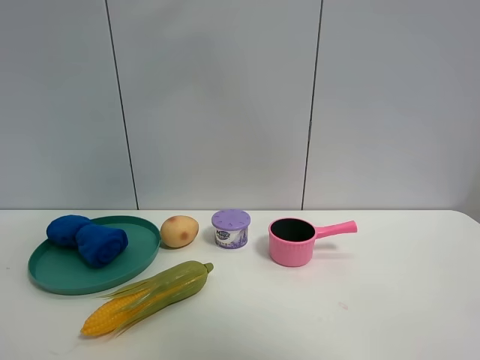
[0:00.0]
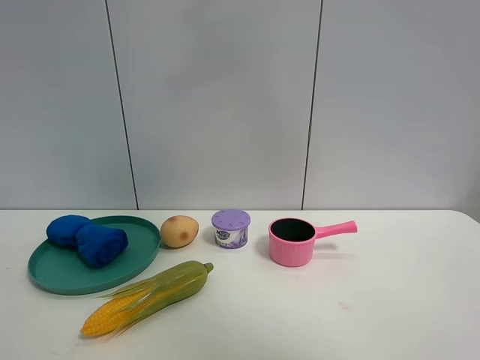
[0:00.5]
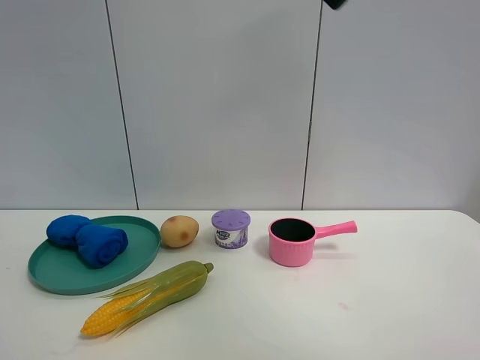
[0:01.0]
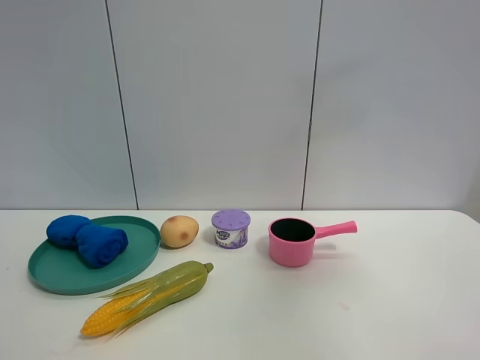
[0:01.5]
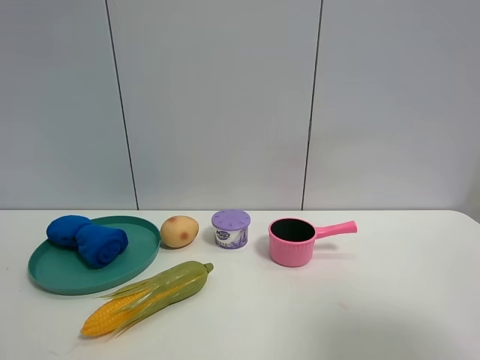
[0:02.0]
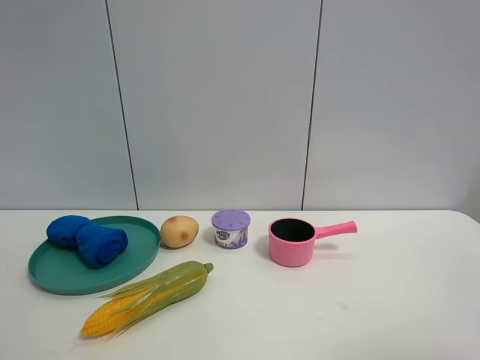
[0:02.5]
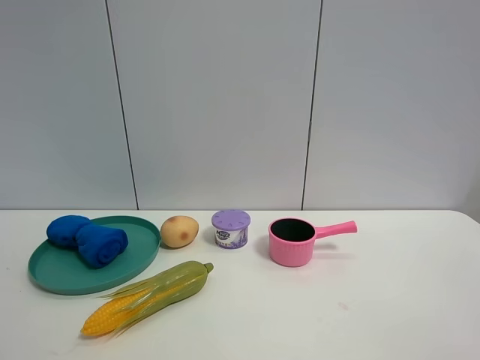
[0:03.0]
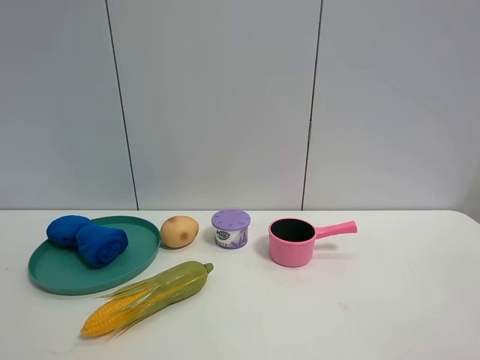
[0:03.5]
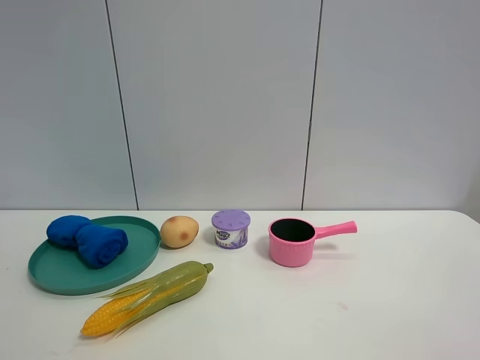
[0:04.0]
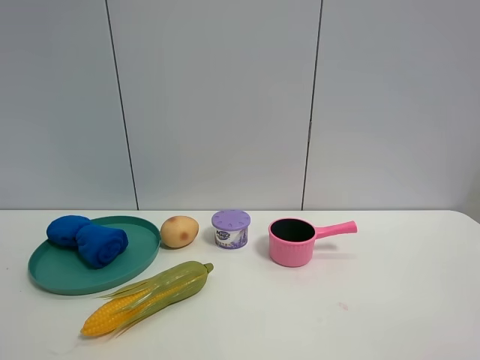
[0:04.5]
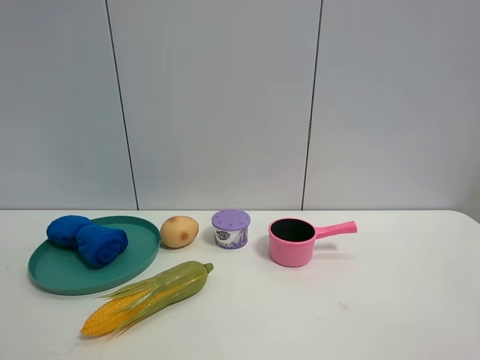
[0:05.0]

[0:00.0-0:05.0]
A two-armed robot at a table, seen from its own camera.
Task of the whole recording: the gripper move the object.
0:00.0 to 0:02.5: The right gripper goes about 40 cm to the right, backward and downward.

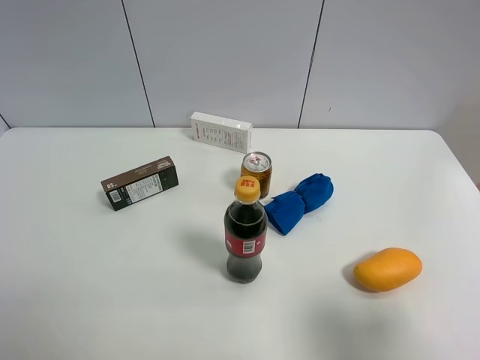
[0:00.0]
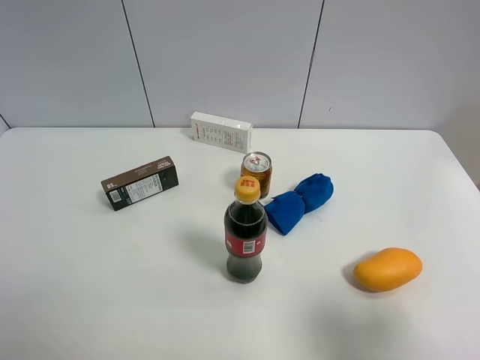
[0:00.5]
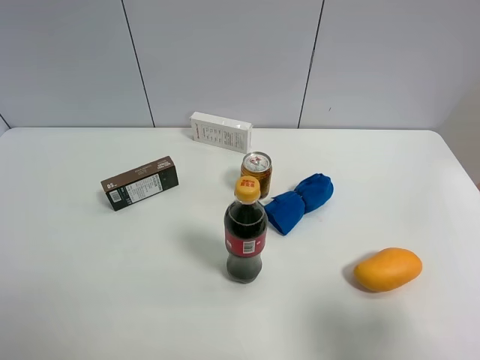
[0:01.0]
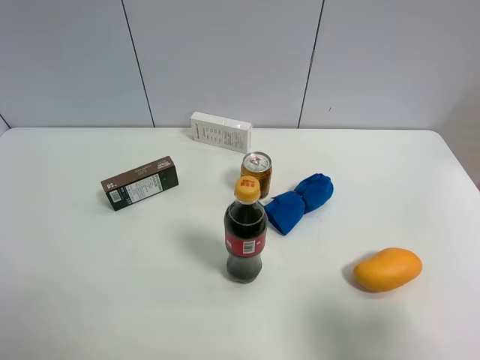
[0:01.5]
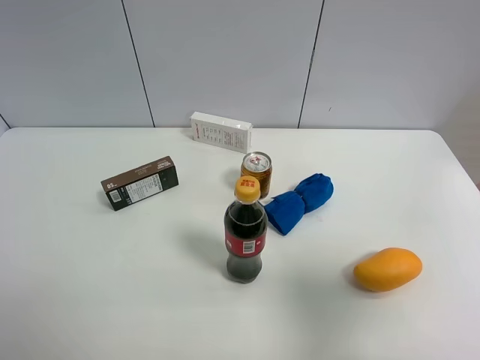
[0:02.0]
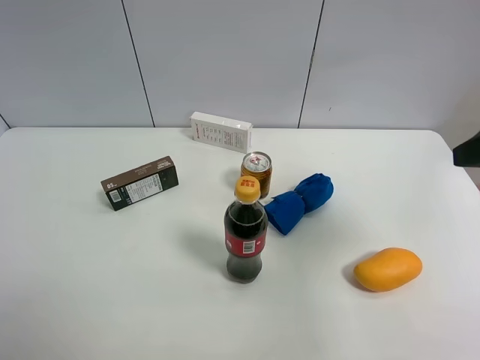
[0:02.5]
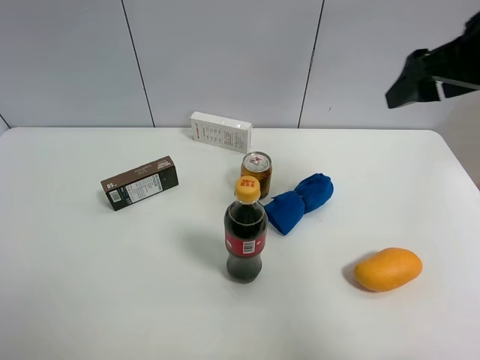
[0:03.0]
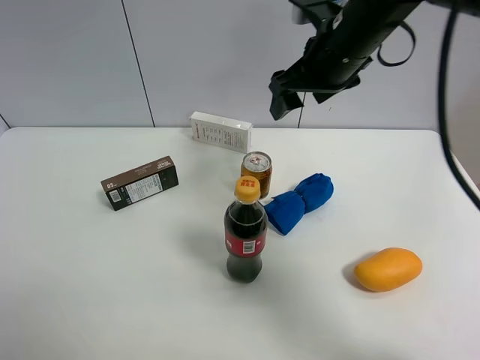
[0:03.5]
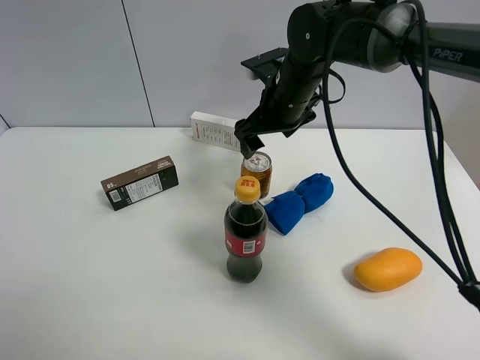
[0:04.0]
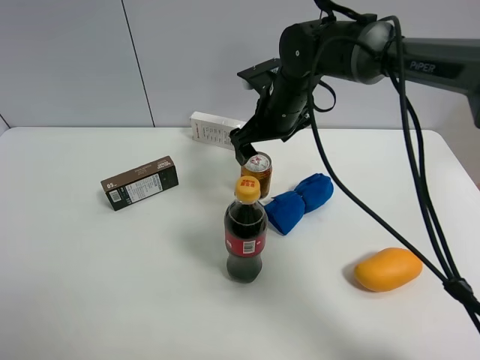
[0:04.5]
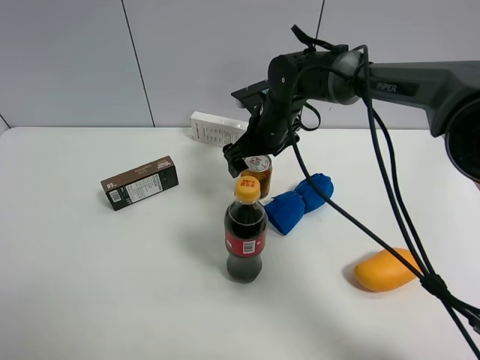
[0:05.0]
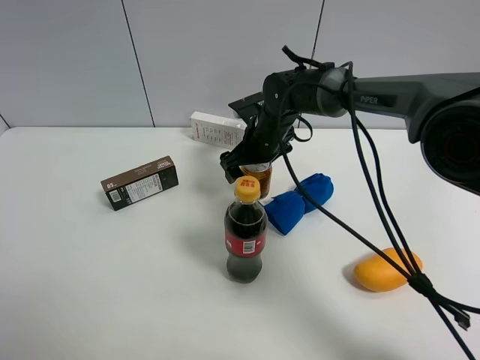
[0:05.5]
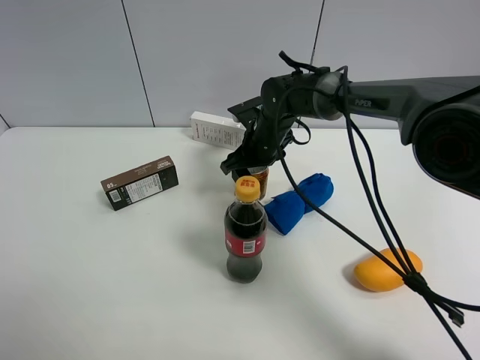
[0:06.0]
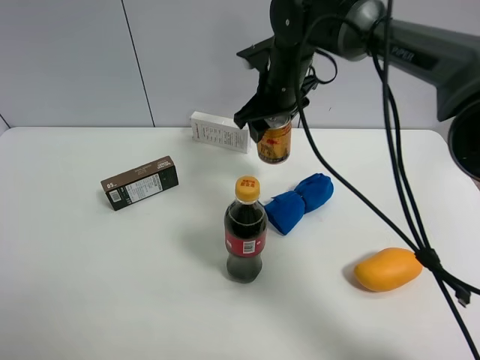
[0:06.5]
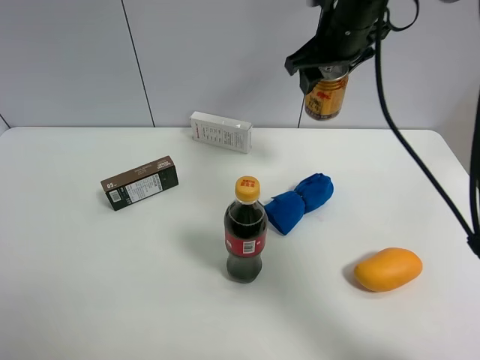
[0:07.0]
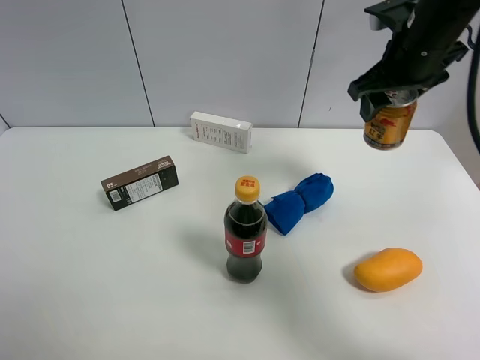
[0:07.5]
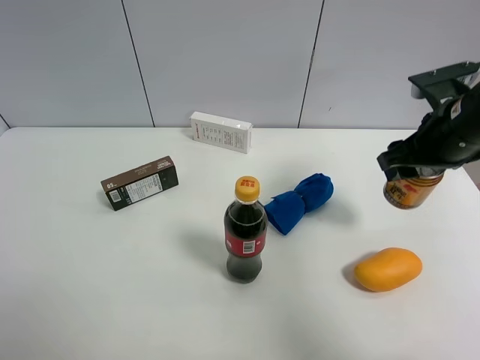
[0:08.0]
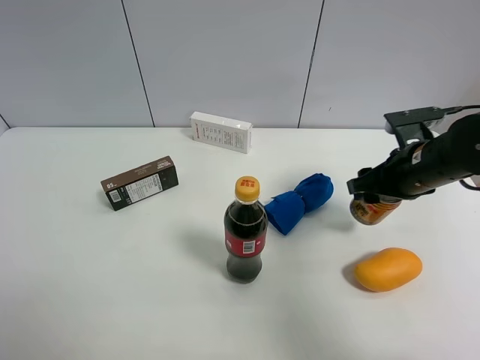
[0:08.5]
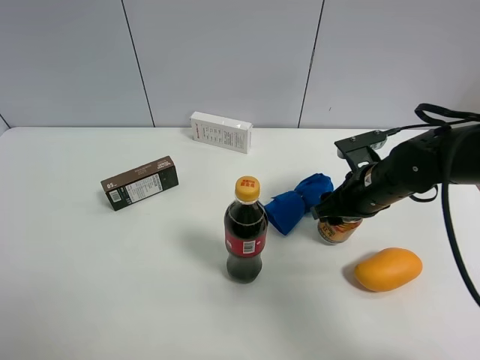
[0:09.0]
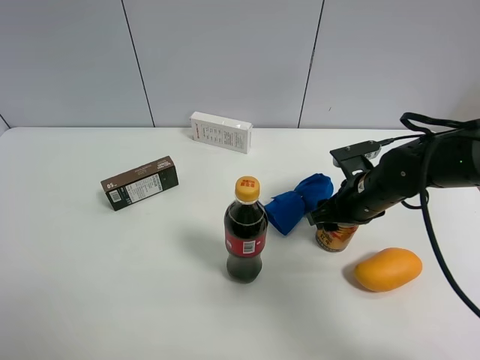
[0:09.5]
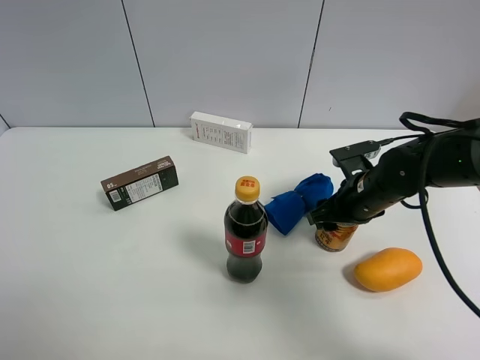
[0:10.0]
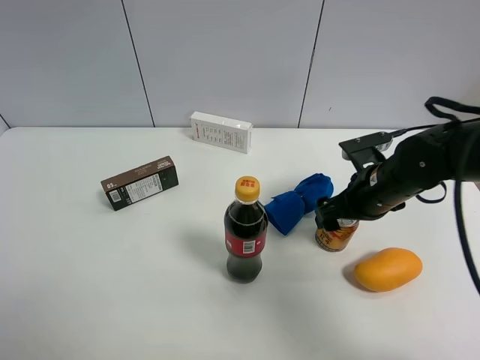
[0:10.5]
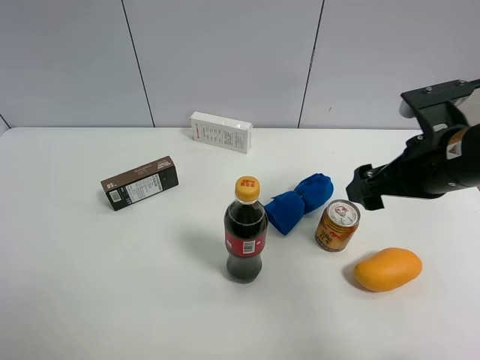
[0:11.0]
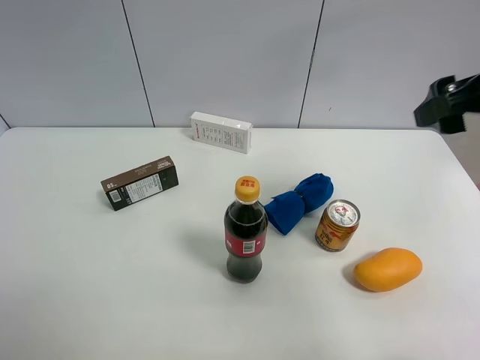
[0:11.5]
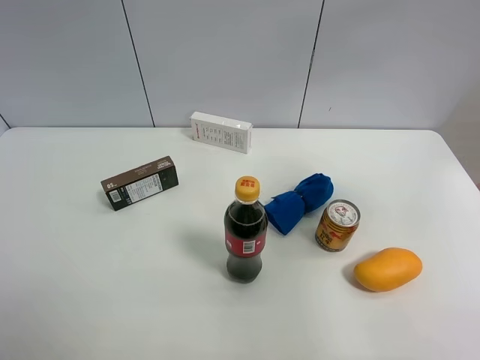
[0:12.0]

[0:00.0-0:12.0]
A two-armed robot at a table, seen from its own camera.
Task of the whole recording: the gripper move the object.
Step, 0:00.0 to 0:06.0: Grasp the red bull with the right gripper.
Step, 0:06.5 to 0:10.5: Place the red bull on the table with the right gripper.
0:00.0 to 0:02.0: The right gripper goes some 5 cm forward, and closes its fingers.
0:02.0 to 0:04.0: The right gripper shifts about 40 cm forward and to the left, and opens its fingers.
0:04.0 to 0:06.0: The right gripper shifts some 10 cm downward, and closes up.
0:06.0 to 0:08.0: The right gripper moves to the right, backward and upward, approximately 30 cm.
0:08.0 to 0:10.0: The right gripper moves downward and to the left, approximately 15 cm.
0:10.0 to 0:12.0: The right gripper goes approximately 30 cm upward and to the right, and opens its fingers.

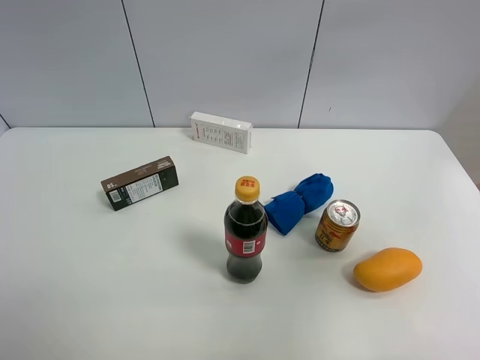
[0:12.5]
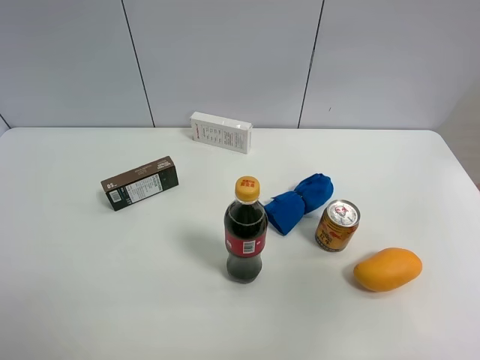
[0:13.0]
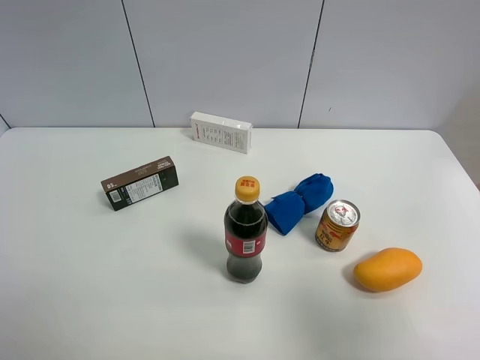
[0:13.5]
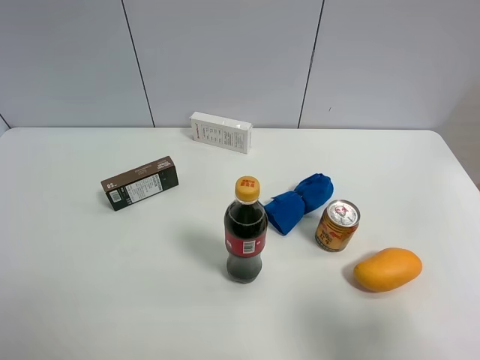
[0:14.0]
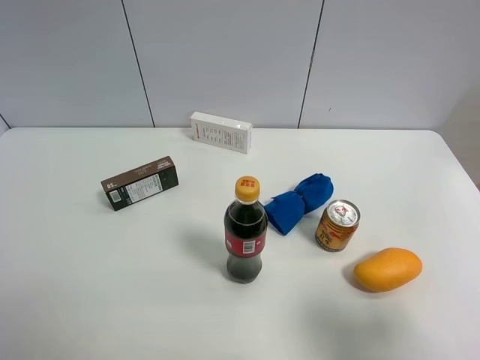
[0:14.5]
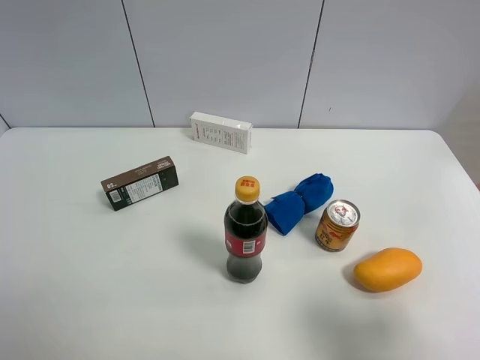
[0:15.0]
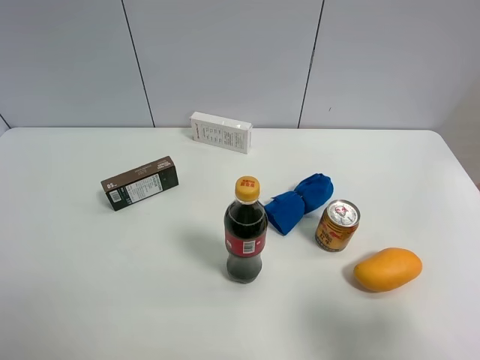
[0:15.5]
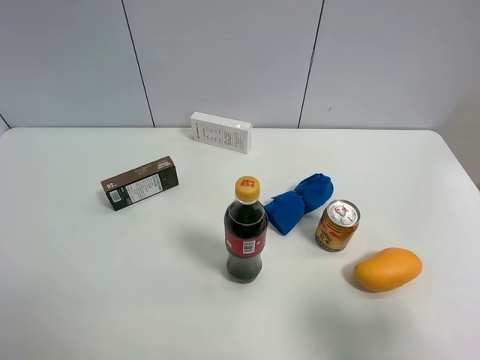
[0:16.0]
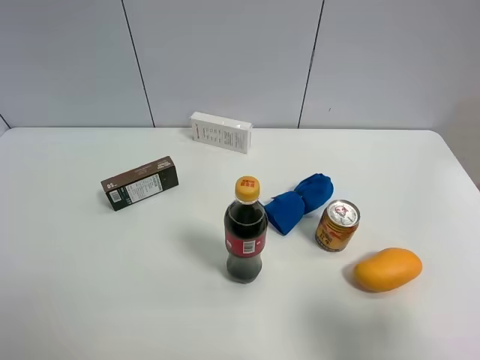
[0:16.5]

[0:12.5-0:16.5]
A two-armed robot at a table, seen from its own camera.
Task of the whole recording: the gripper move the object.
0:12.5 to 0:14.5: The right gripper goes about 20 cm downward.
0:14.5 to 0:16.5: The two grippers keep their place.

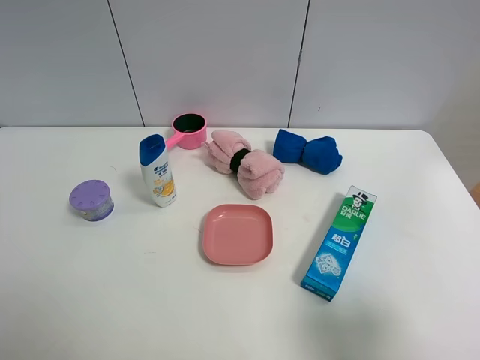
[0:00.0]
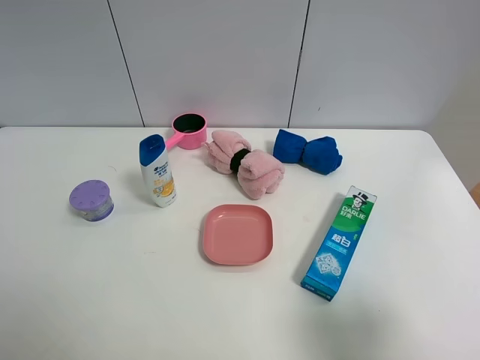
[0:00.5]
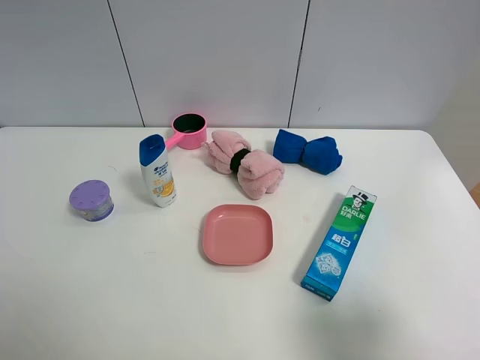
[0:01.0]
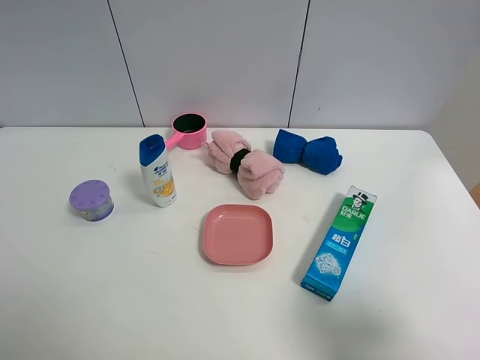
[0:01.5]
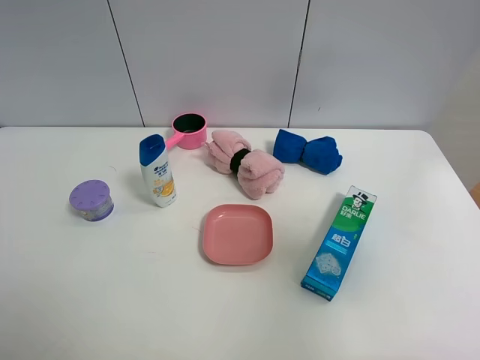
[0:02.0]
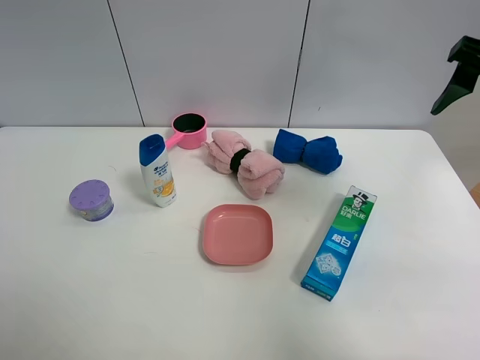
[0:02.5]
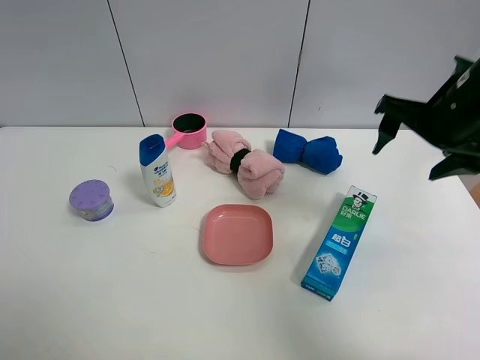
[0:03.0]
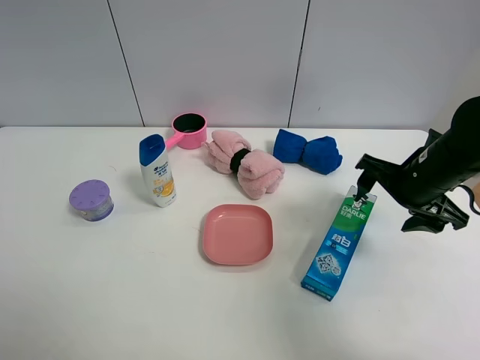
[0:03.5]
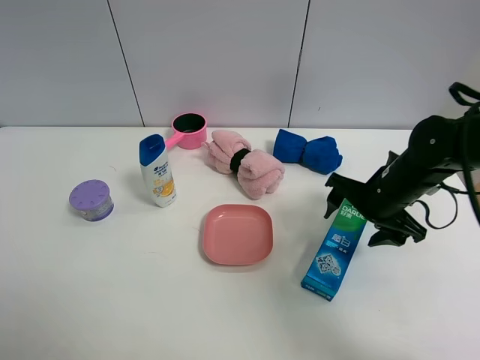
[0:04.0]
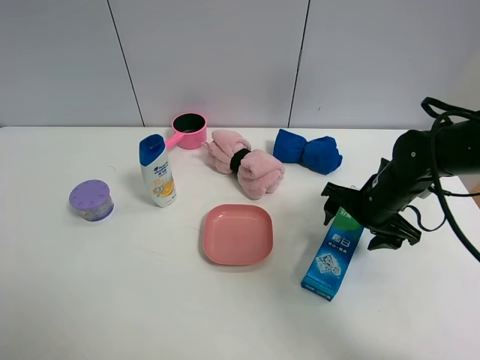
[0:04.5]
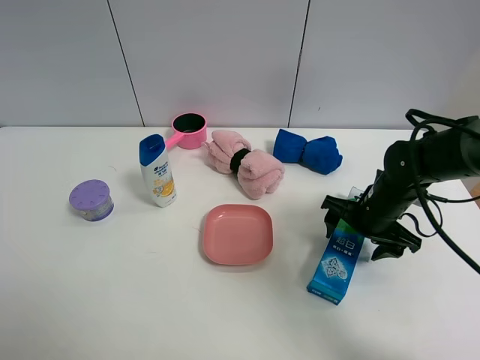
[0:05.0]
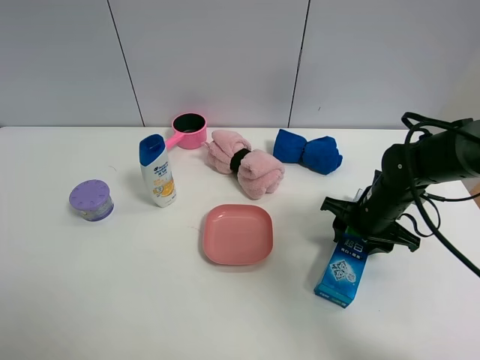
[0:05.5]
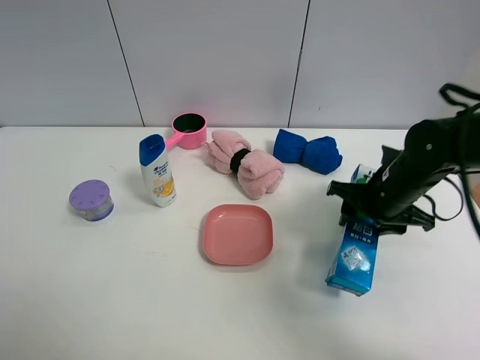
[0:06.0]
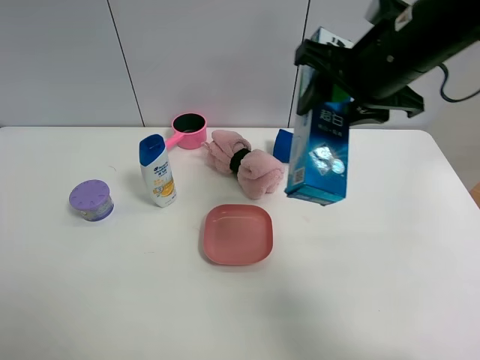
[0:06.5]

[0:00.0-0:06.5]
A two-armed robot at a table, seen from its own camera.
Task of the whole recording: the gripper move the object.
Step, 0:00.0 to 0:05.5: Grasp the toothpaste with the right gripper.
0:00.0 to 0:02.0: The right gripper travels upward and forward by roughly 15 cm.
0:02.0 to 0:04.5: The right gripper is displaced downward and forward by approximately 30 cm.
0:04.5 to 0:06.5: The right gripper is displaced upward by some 20 cm, and closes.
